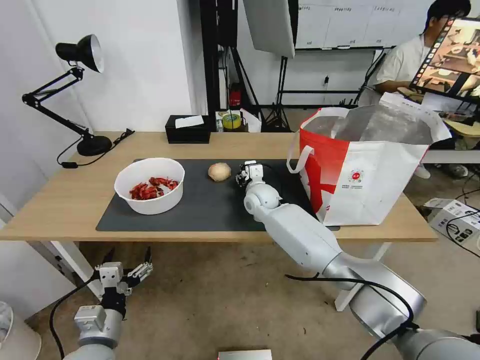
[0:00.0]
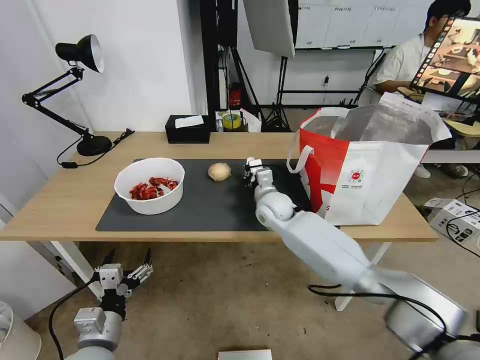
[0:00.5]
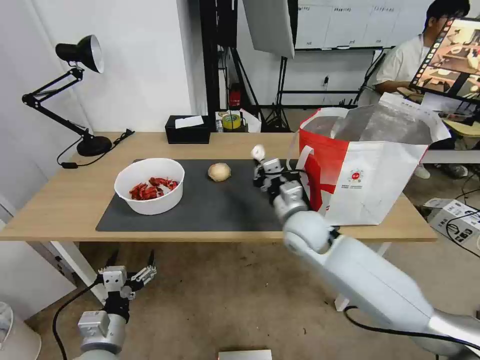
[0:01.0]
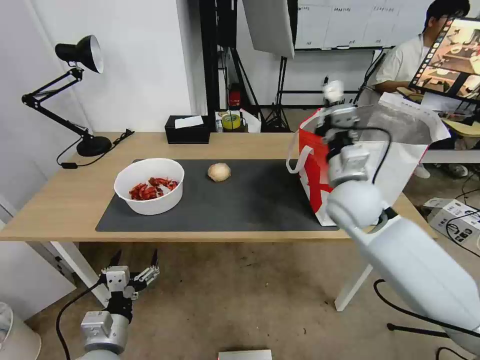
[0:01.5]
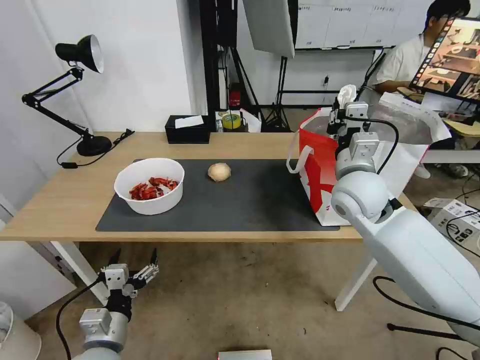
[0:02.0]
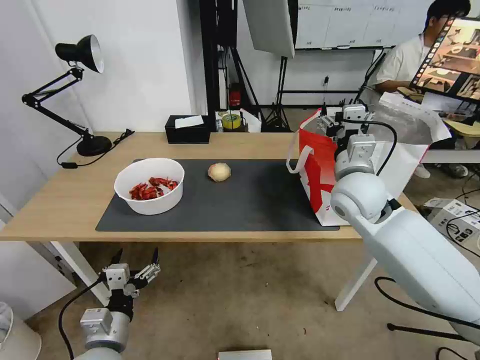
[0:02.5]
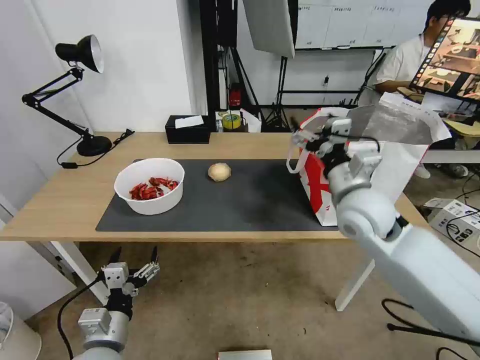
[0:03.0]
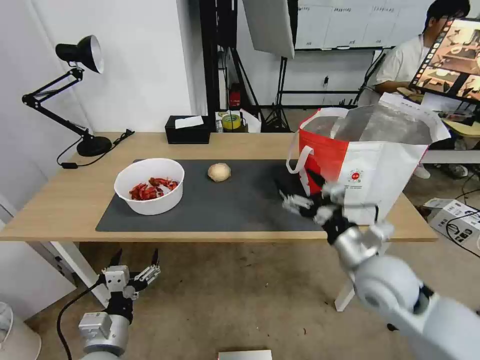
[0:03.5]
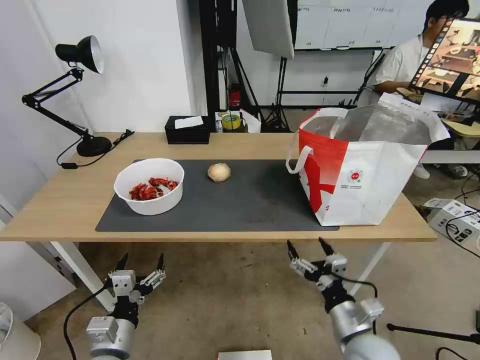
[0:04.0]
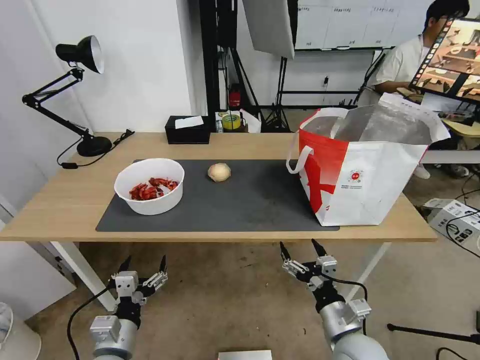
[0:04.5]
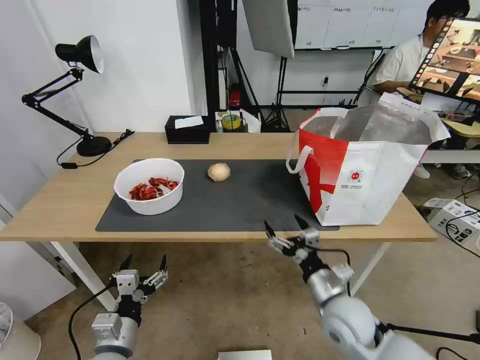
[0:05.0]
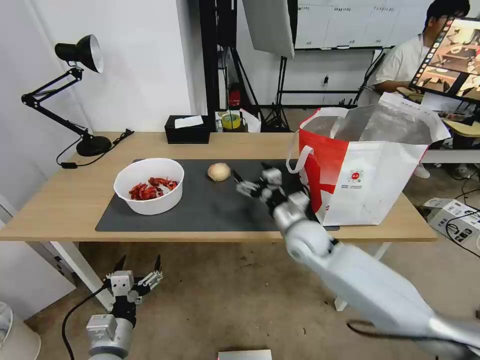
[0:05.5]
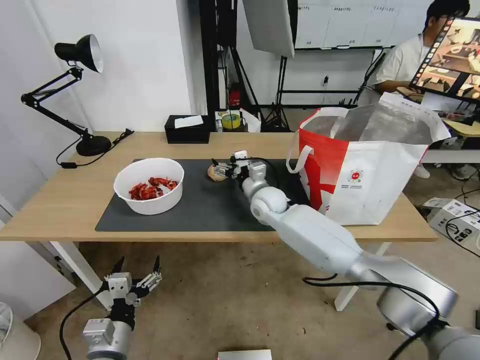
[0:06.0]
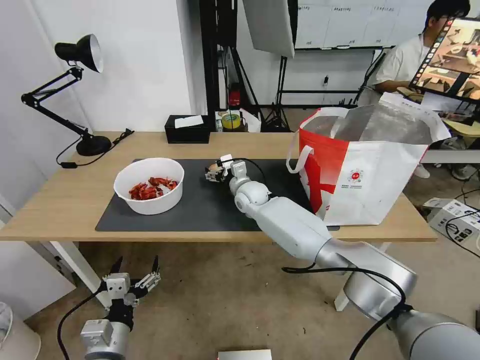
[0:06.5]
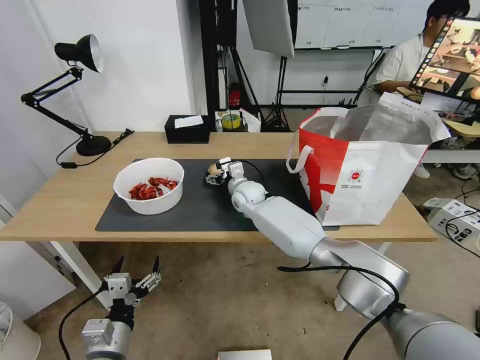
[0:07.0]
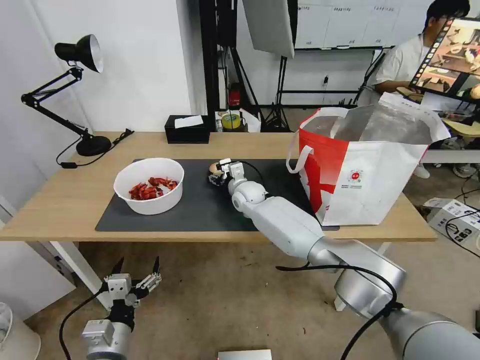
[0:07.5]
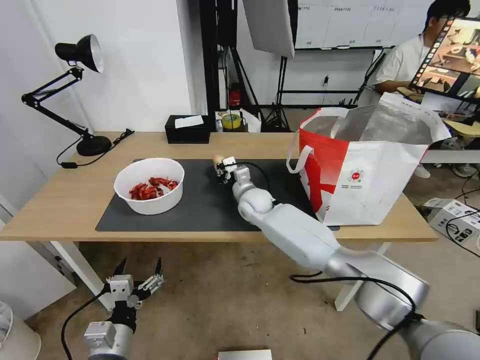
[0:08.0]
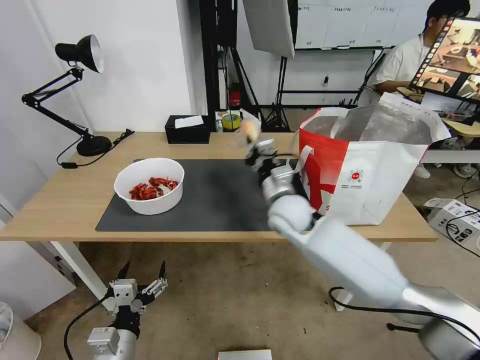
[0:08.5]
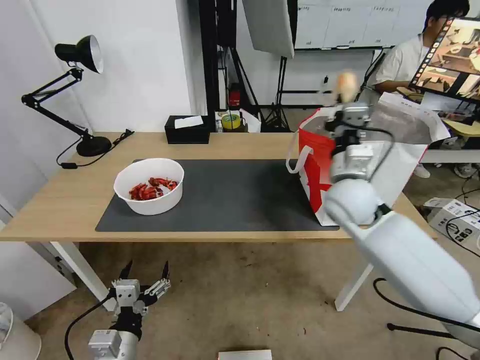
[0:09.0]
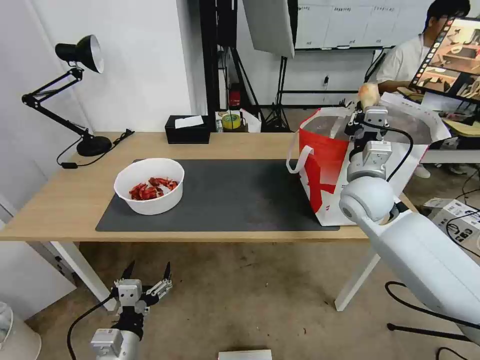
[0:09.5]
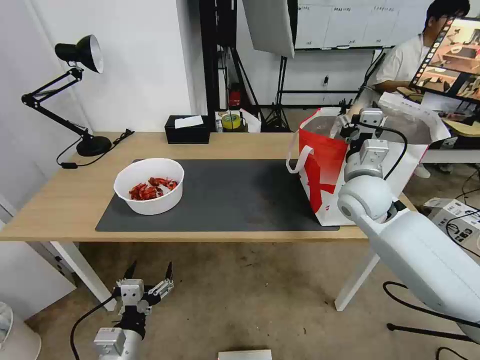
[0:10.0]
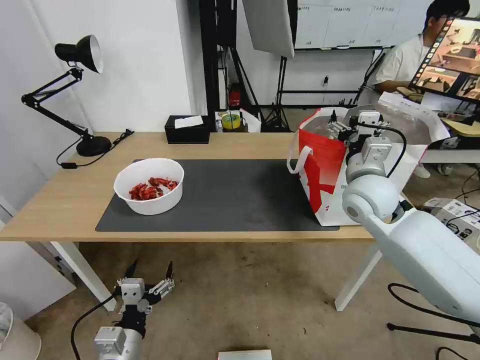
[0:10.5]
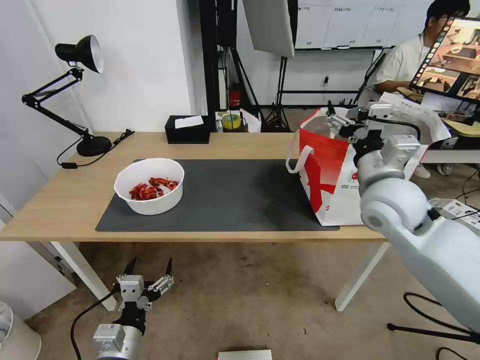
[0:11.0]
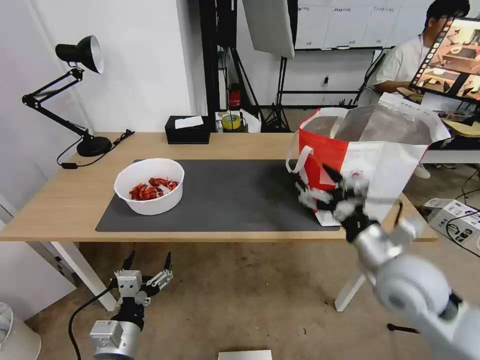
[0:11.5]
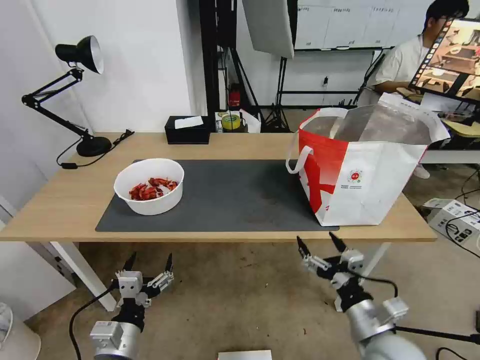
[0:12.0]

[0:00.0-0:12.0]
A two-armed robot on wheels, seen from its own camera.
Task of the whole recording: Pick up the trash from the table and place it into the takeout bag.
0:00.0 to 0:02.0: The right gripper goes some 25 cm to the right, upward and backward.
0:02.0 to 0:04.0: The right gripper travels backward and downward by roughly 35 cm, and opens.
0:04.0 to 0:06.0: The right gripper goes roughly 40 cm forward and to the left.
0:06.0 to 0:08.0: The right gripper closes up.
0:08.0 to 0:10.0: The right gripper shifts some 25 cm to the right, upward and backward, and opens up.
0:10.0 to 0:12.0: The right gripper shifts about 30 cm backward and downward.

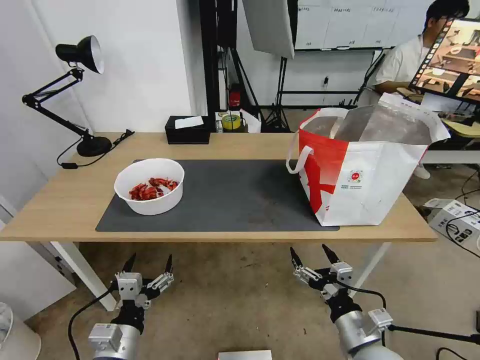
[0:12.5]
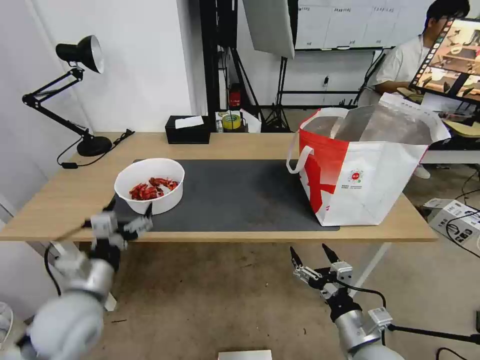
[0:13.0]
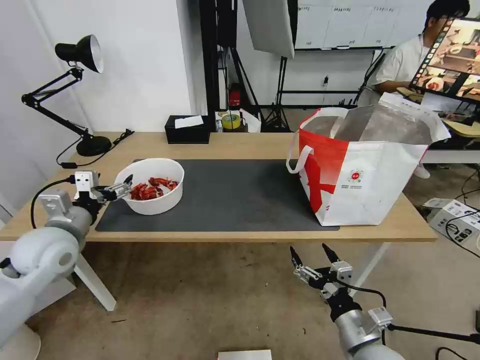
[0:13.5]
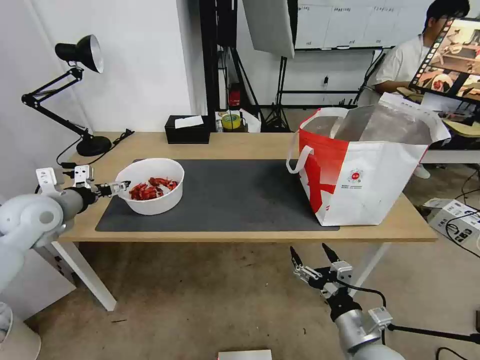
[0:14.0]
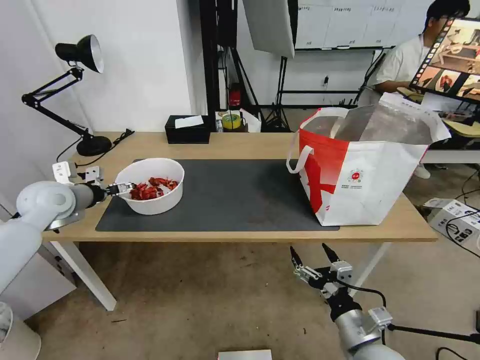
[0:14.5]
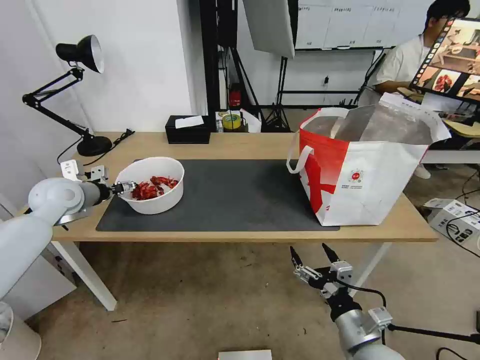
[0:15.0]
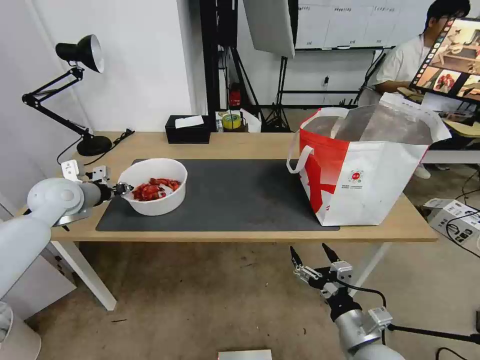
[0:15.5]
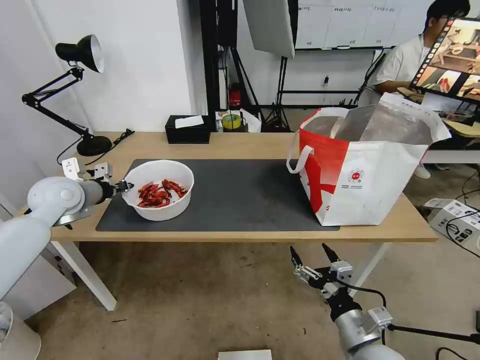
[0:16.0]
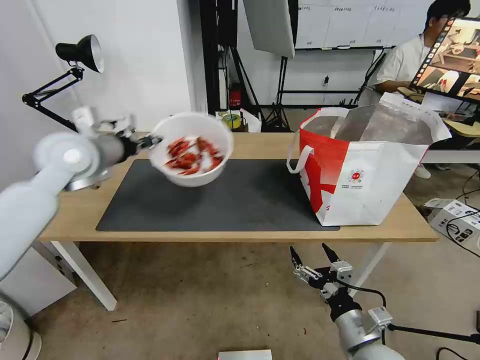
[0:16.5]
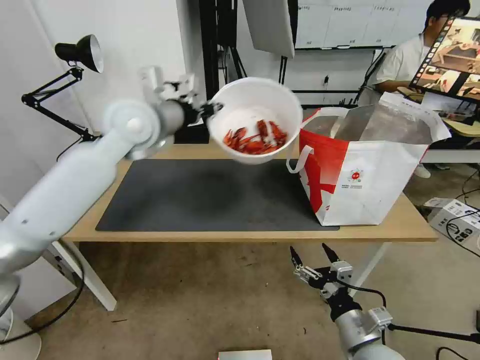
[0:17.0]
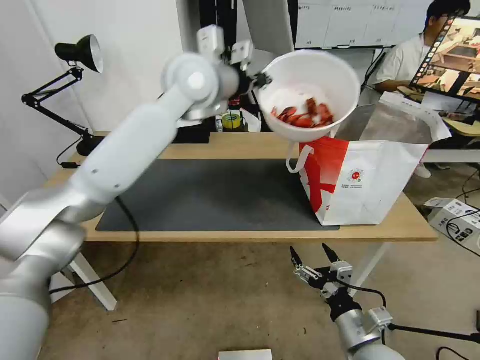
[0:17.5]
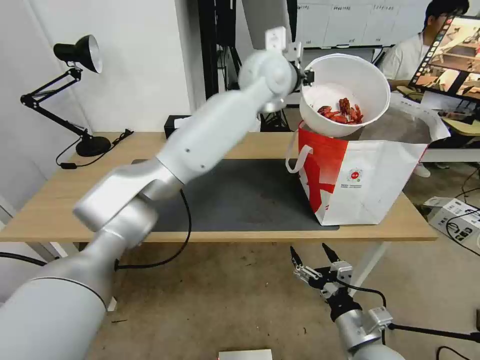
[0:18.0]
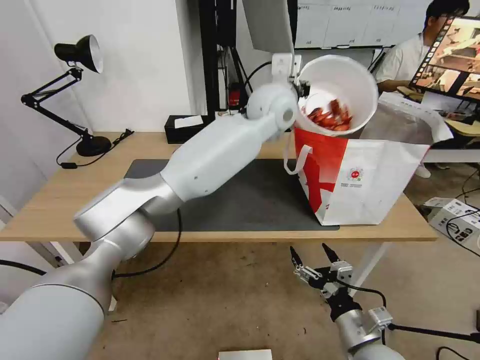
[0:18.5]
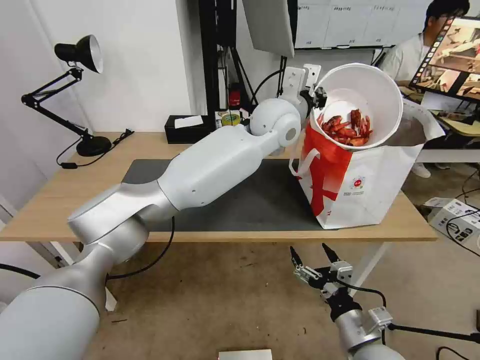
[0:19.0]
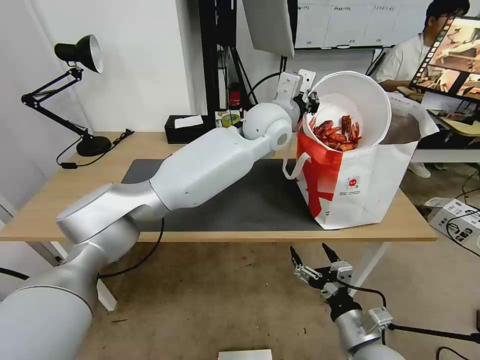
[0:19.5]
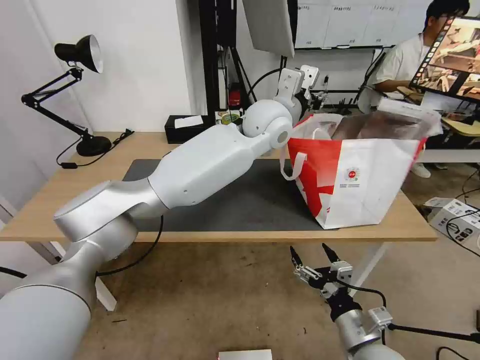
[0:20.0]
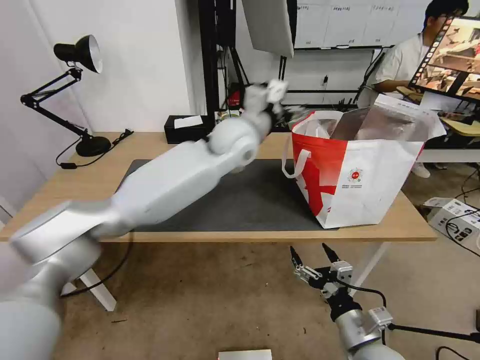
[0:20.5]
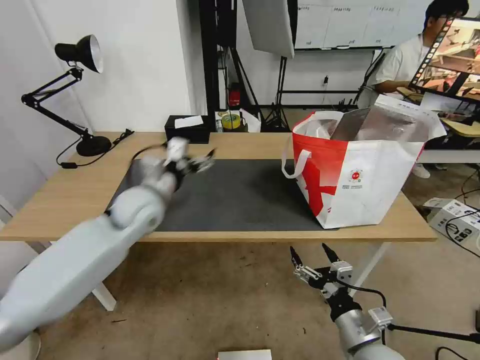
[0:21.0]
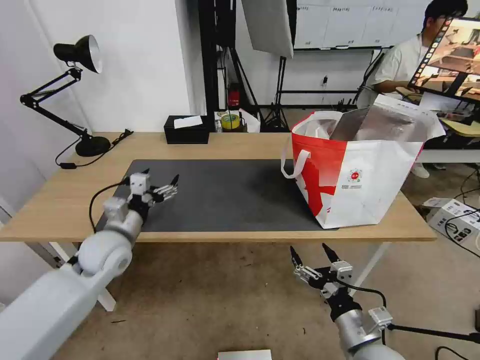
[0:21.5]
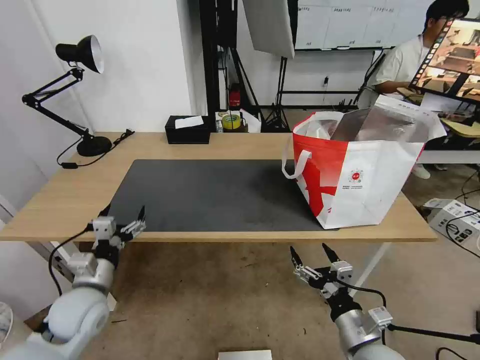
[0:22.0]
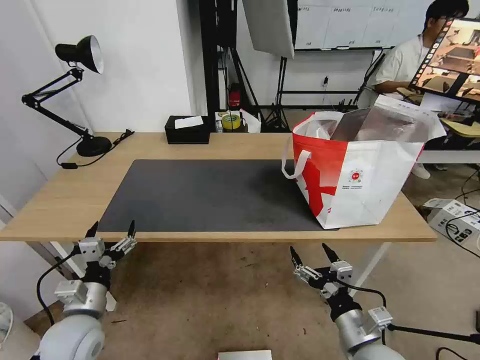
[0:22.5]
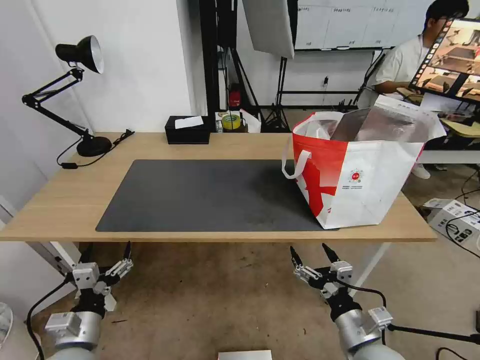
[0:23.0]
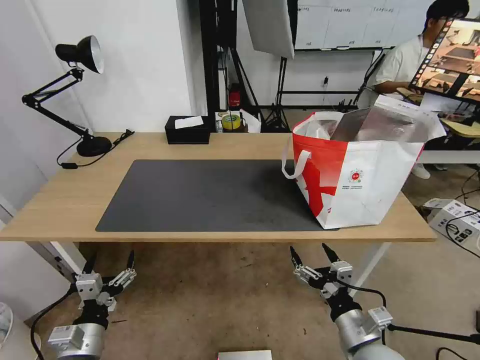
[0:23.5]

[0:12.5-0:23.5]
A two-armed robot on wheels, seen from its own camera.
Task of the whole recording: Pick up the trash from the table and place it into the takeout bag.
0:12.5 to 0:14.5: The left gripper moves forward, to the left and upward, some 40 cm.
0:14.5 to 0:16.0: The left gripper closes.
0:16.0 to 0:18.0: The left gripper heads to the right and upward, covering some 50 cm.
0:18.0 to 0:20.0: The left gripper shifts roughly 10 cm downward, and opens up.
0:20.0 to 0:21.5: The left gripper goes some 40 cm to the left, downward and backward, and opens its fingers.
0:21.5 to 0:23.5: The left gripper travels backward and downward by some 25 cm.
